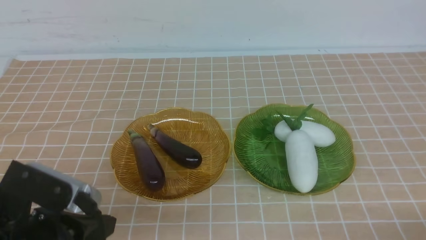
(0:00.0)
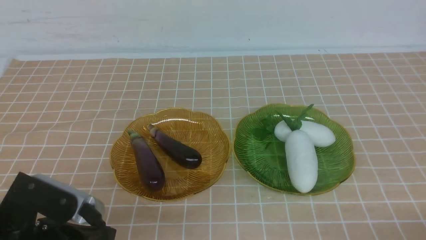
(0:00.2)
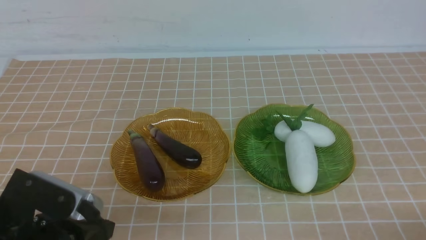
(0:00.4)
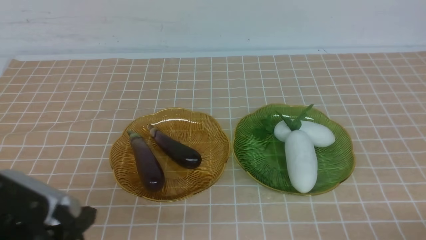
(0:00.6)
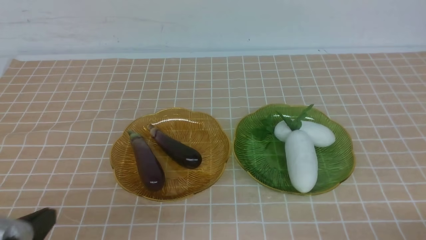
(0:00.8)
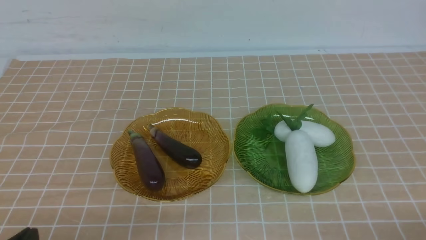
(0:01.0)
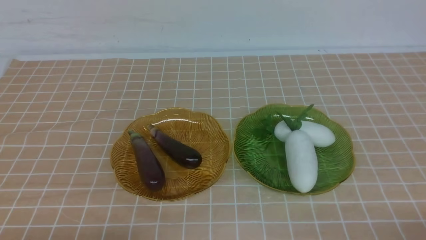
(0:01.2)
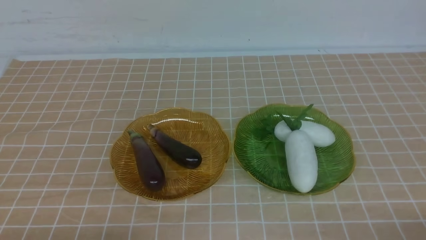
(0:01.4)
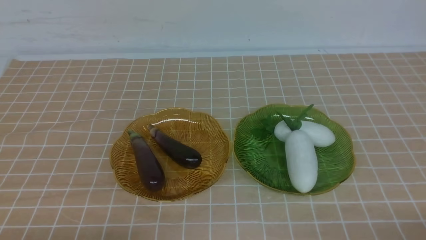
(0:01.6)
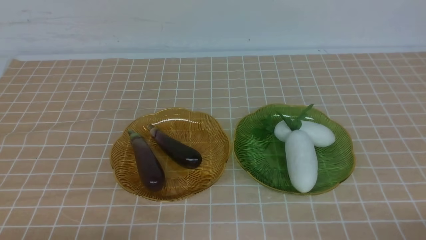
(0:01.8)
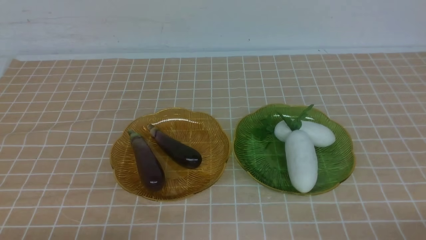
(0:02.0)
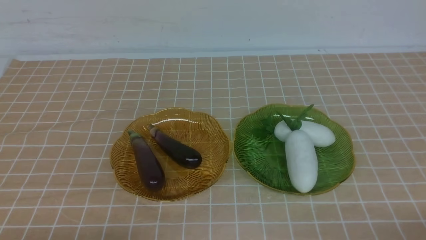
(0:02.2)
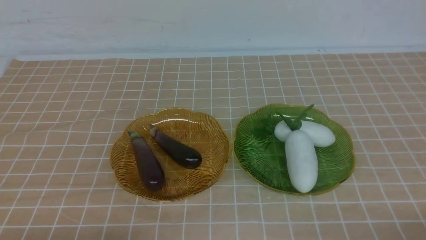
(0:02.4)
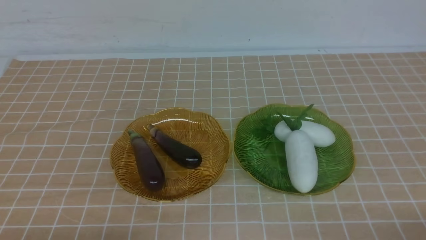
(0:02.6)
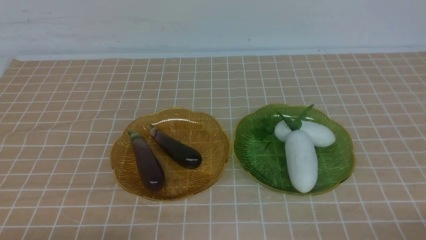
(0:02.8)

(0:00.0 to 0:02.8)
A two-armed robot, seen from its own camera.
0:00.0 - 0:01.4: The left gripper travels downward, backward and to the left by approximately 10 cm.
0:01.4 - 0:02.8: The two grippers keep their place.
